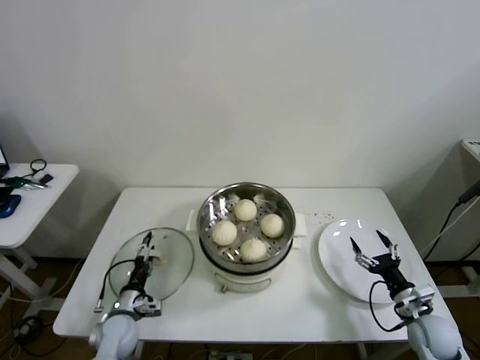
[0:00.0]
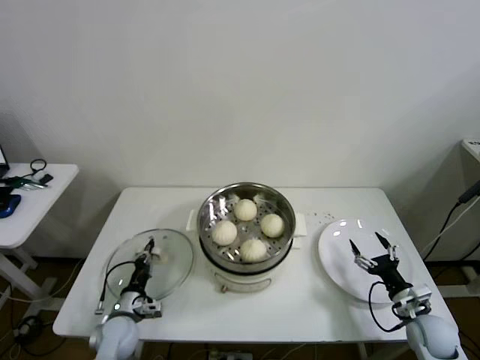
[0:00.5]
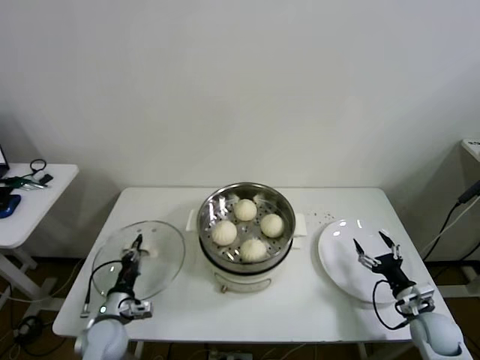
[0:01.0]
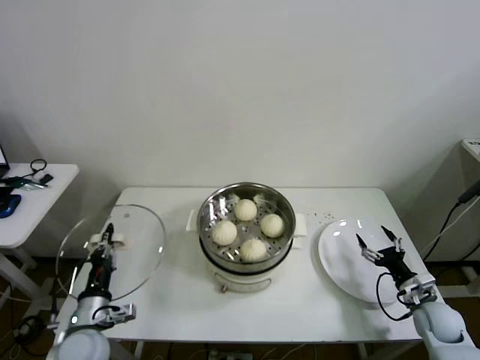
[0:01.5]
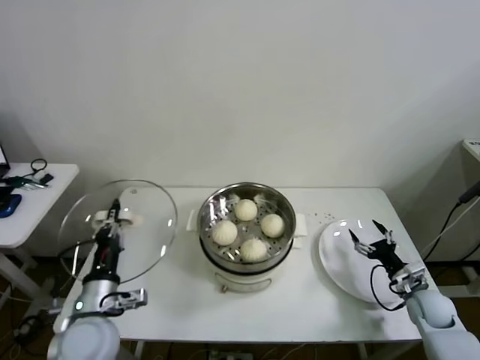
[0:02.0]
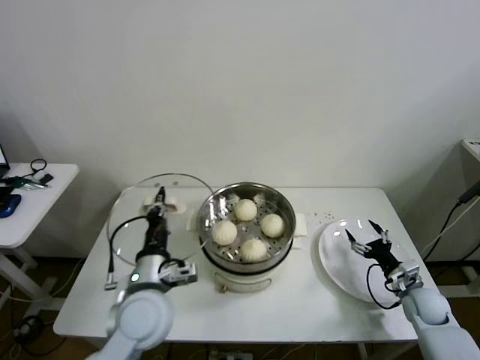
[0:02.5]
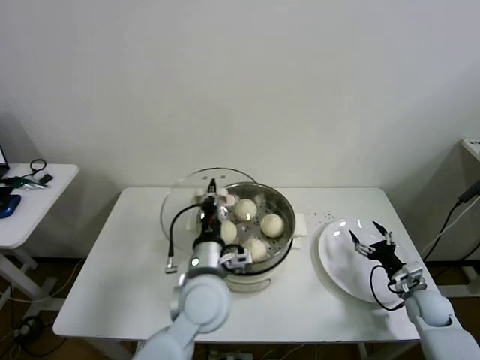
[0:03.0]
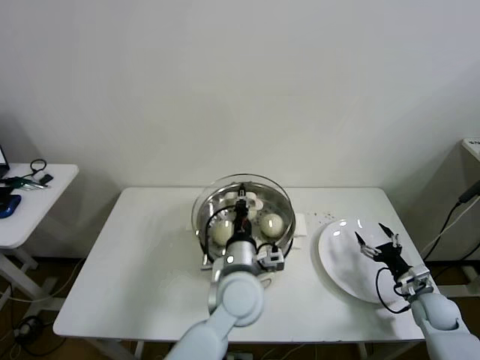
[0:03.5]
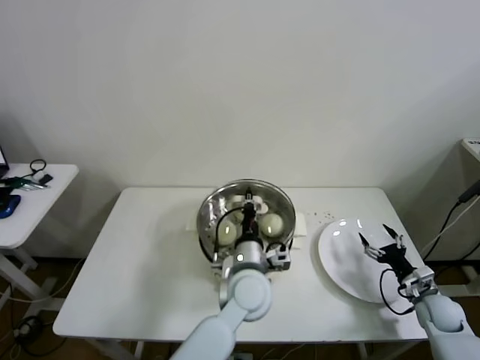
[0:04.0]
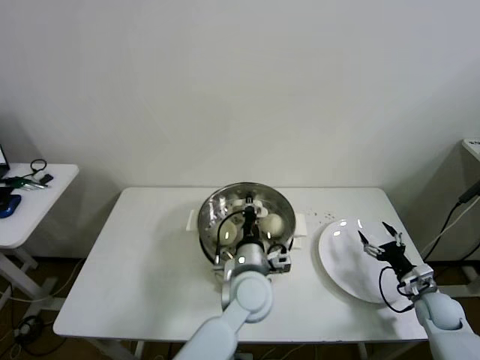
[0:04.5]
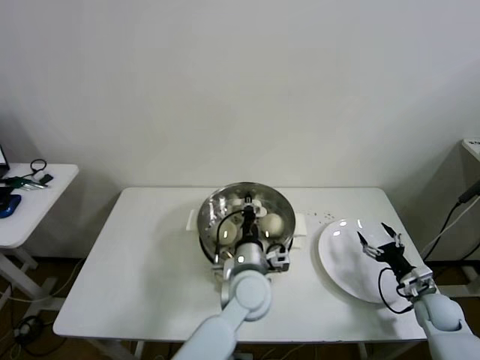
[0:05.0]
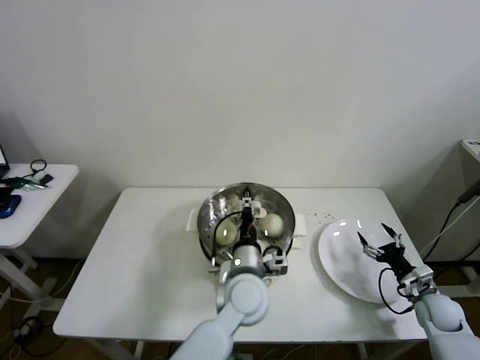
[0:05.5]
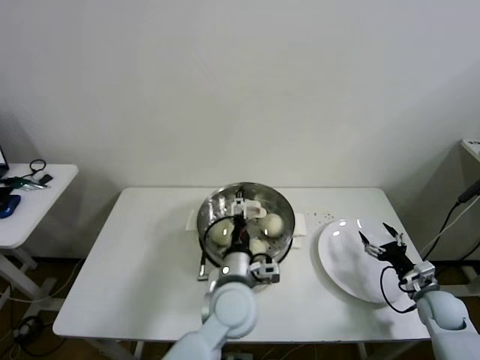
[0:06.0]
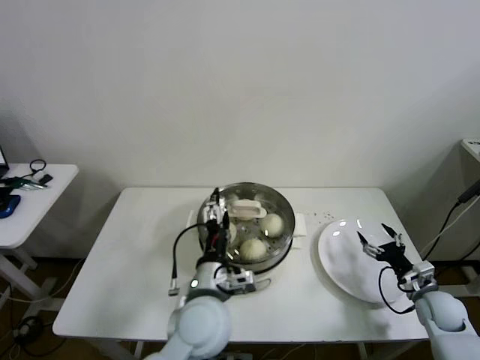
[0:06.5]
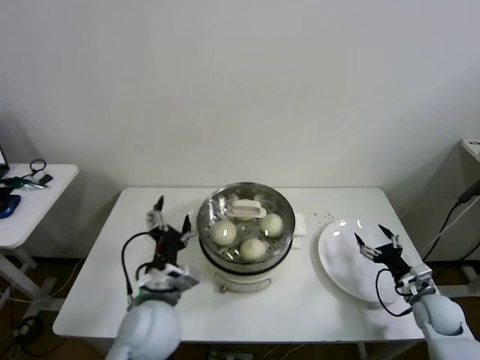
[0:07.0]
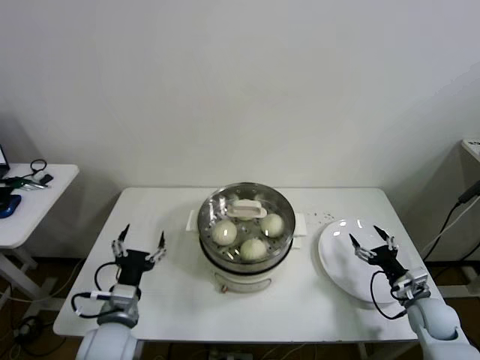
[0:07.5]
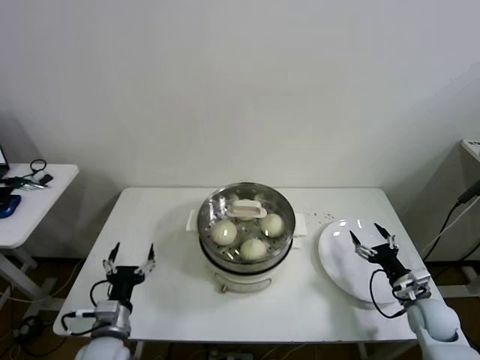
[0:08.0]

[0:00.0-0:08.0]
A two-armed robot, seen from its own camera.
Step, 0:01.0 to 0:05.0: Place the pot lid on the steamer with left gripper.
0:00.0 to 0:02.0: The right gripper travels forward by about 5 cm. The left gripper shifts approximately 20 cm upward, and closes up.
0:02.0 to 0:04.0: The left gripper shifts approximately 30 cm to the right.
0:04.0 to 0:06.0: The left gripper opens.
0:06.0 to 0:08.0: The left gripper moves to the left, approximately 25 cm.

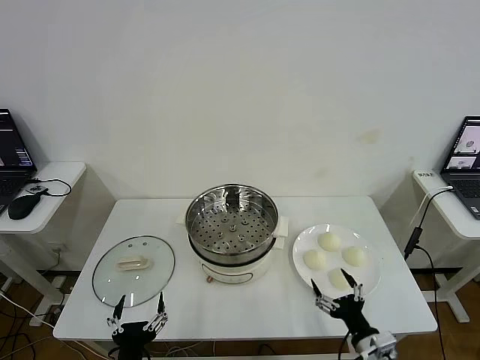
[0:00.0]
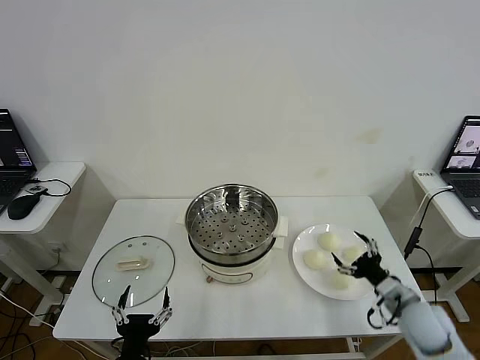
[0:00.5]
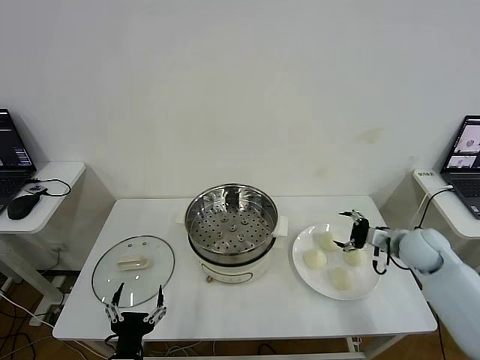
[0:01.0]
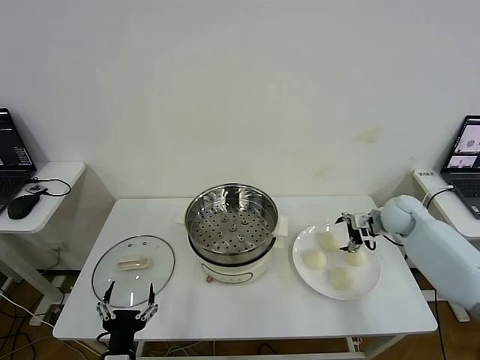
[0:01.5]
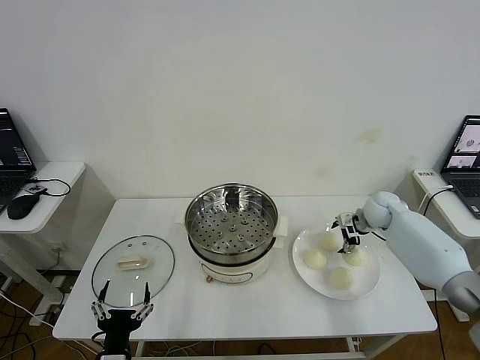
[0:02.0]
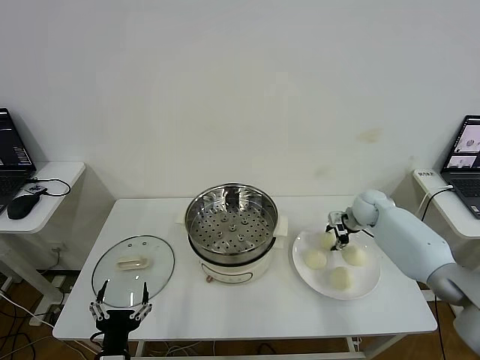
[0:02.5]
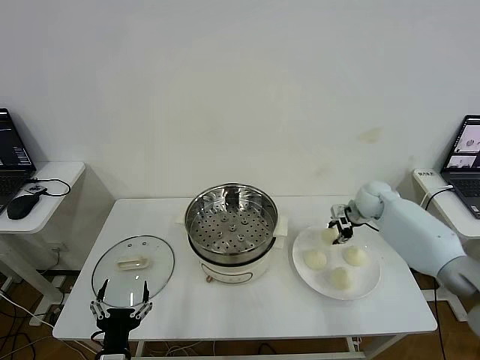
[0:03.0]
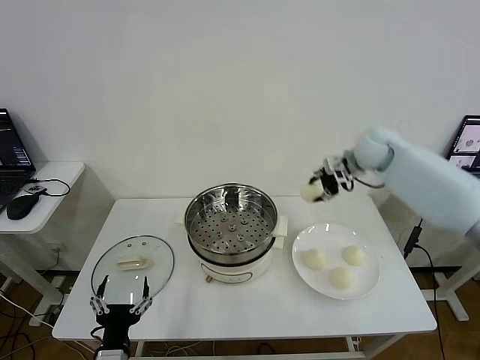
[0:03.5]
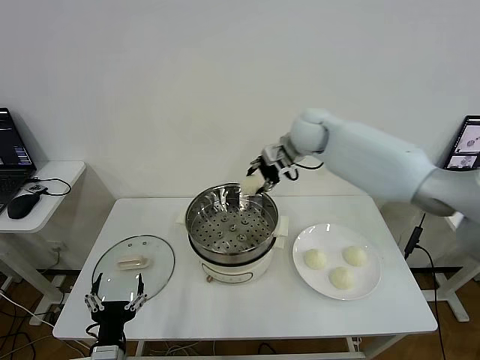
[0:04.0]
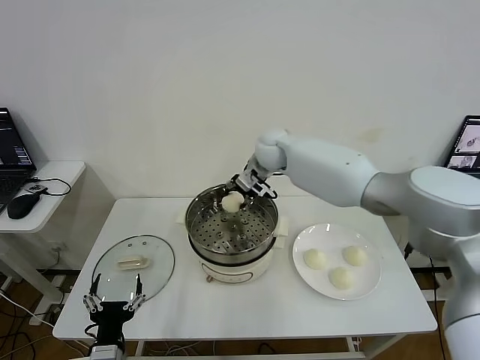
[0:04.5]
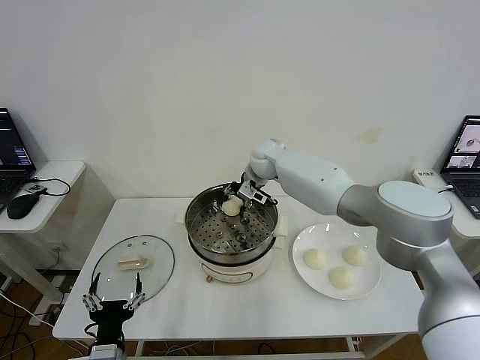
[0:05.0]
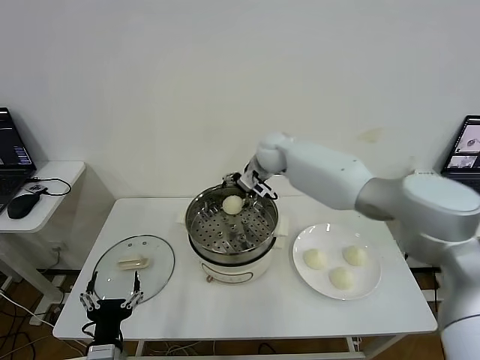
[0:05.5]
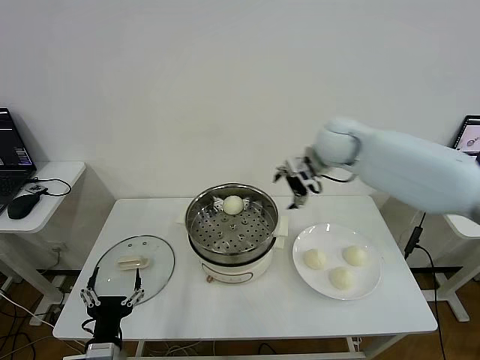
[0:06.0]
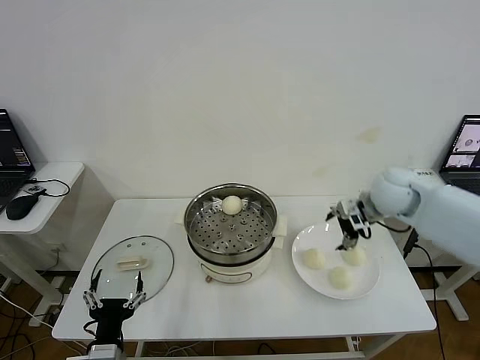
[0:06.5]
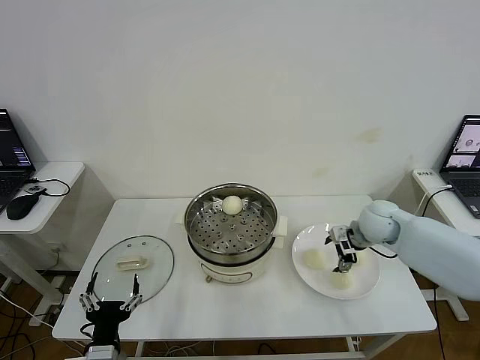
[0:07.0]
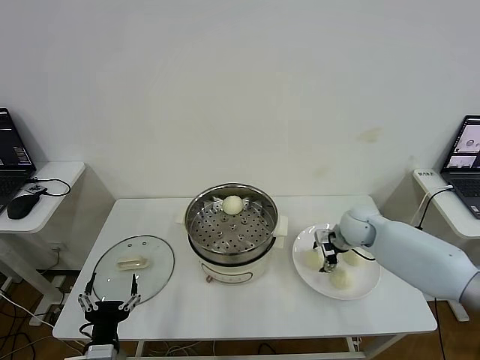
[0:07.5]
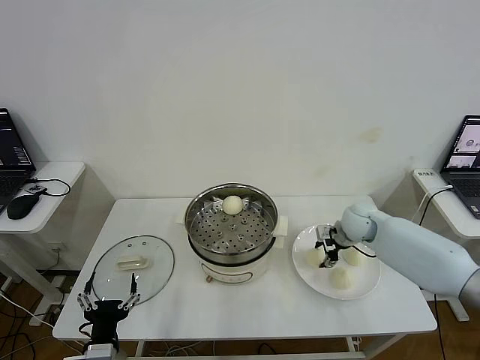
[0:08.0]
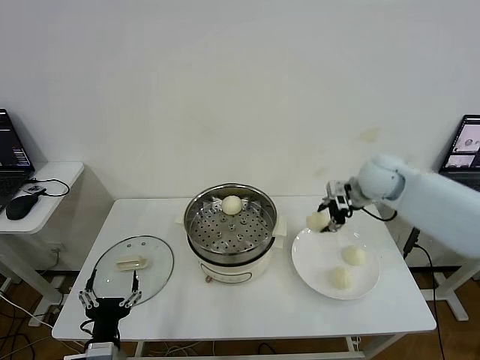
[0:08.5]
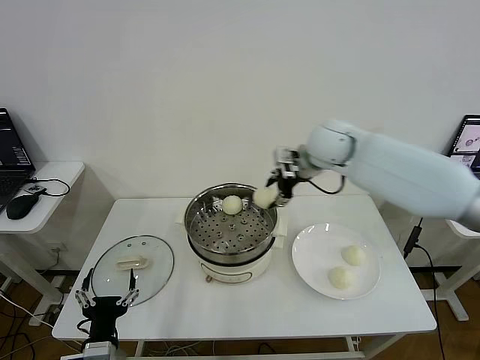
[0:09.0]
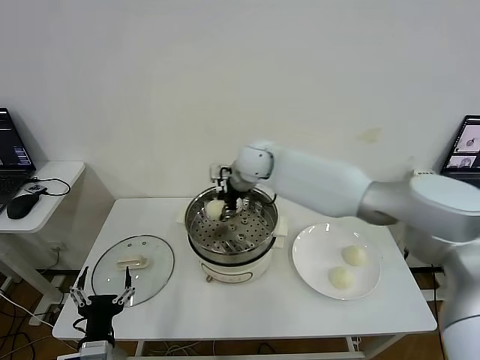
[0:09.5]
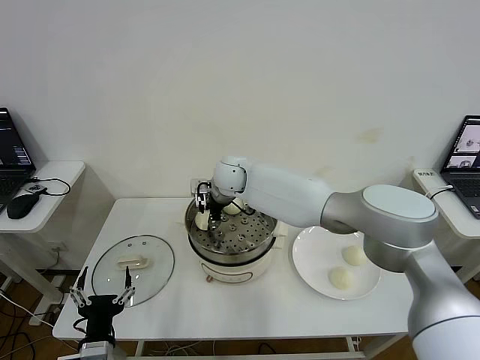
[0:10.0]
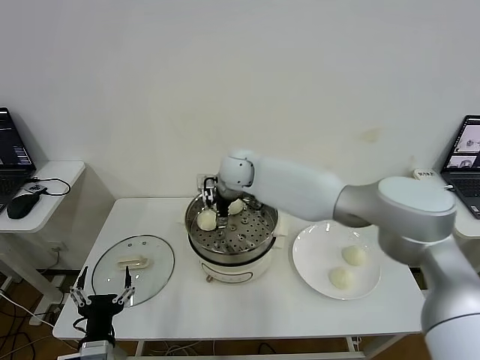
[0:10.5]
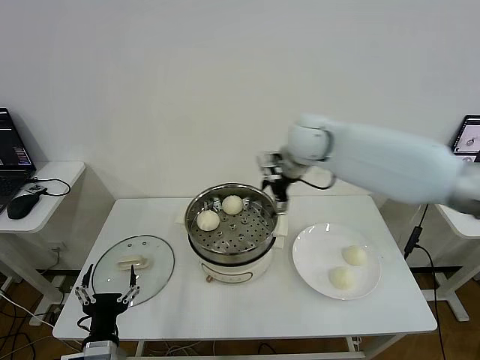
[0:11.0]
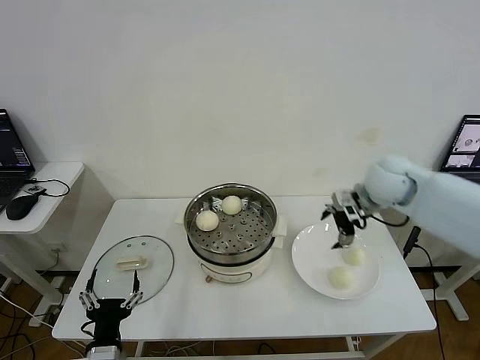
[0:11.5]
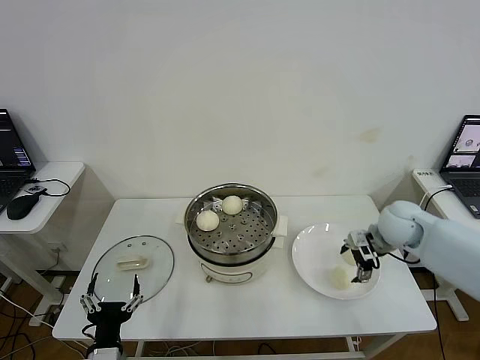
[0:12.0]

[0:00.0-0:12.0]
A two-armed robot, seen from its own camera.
Step, 0:00.0 to 0:02.5: Grasp the baozi in the plate with right gripper.
Step, 0:03.0 to 0:05.5: Place the baozi on the steamer with right gripper.
Step, 0:06.0 to 0:07.5: Grasp the baozi in the plate with right gripper.
Step, 0:08.0 to 0:10.5: Place the baozi on the steamer with right gripper.
0:02.0 to 0:04.0: The right gripper heads to the left and upward, covering approximately 30 cm, and closes its fingers.
0:04.0 to 0:06.0: The right gripper shifts roughly 15 cm to the right and backward, and opens up.
0:06.0 to 0:08.0: The right gripper moves downward, about 20 cm, and closes up.
0:08.0 to 0:10.0: The right gripper moves to the left, about 35 cm.
0:10.0 to 0:12.0: The right gripper heads to the right, covering roughly 40 cm, and opens its fingers.

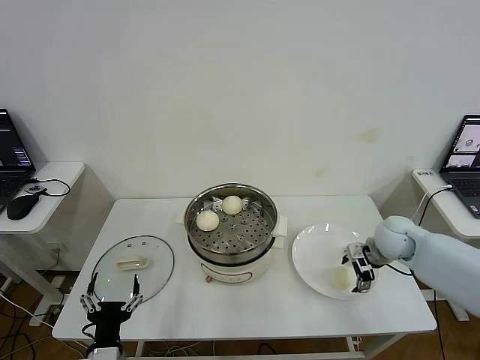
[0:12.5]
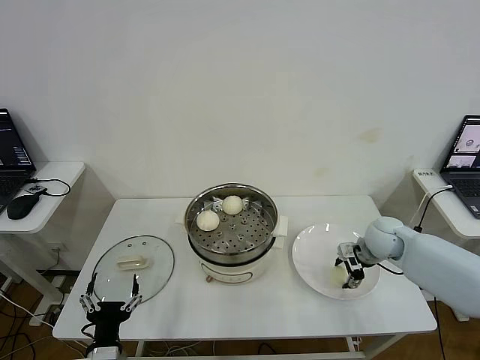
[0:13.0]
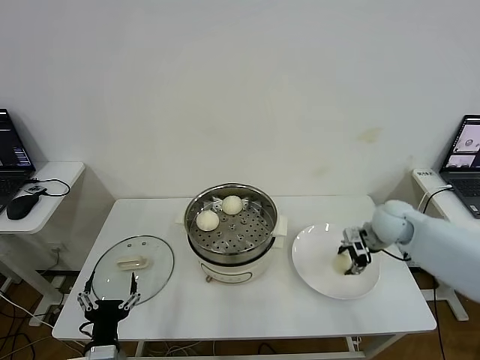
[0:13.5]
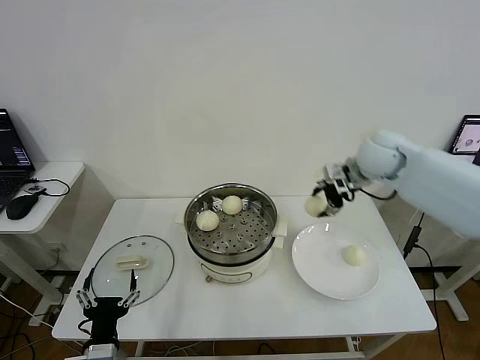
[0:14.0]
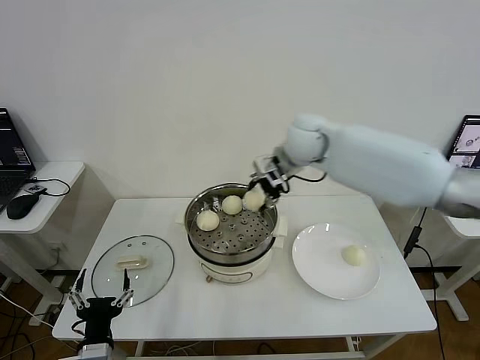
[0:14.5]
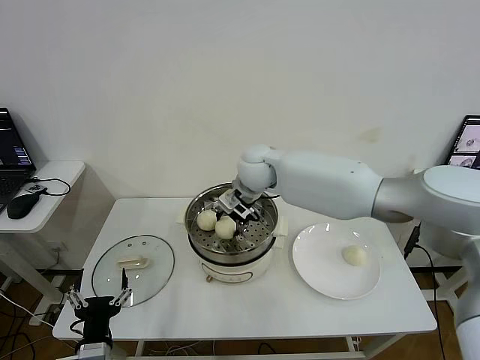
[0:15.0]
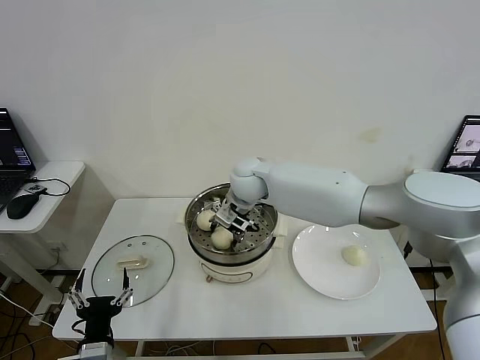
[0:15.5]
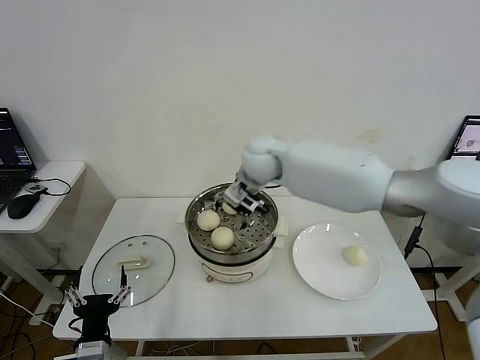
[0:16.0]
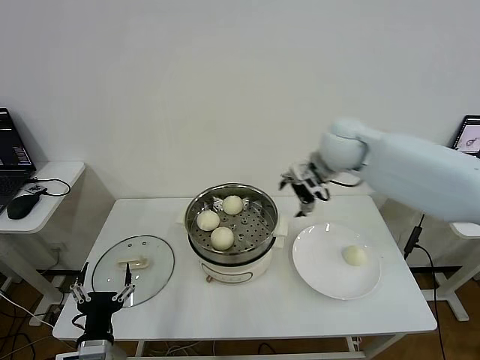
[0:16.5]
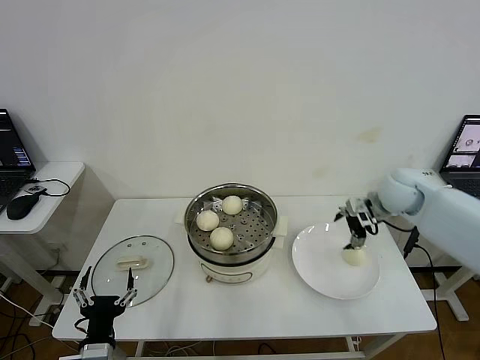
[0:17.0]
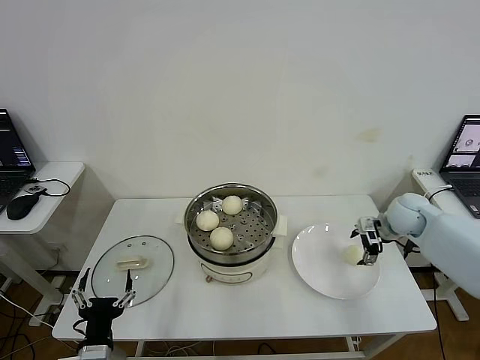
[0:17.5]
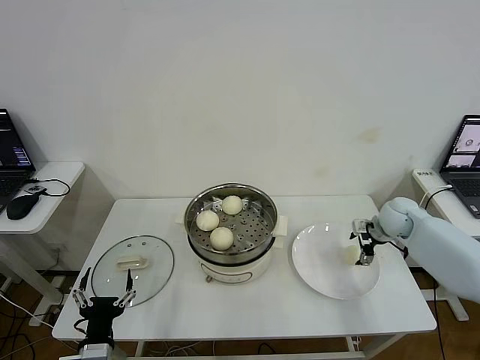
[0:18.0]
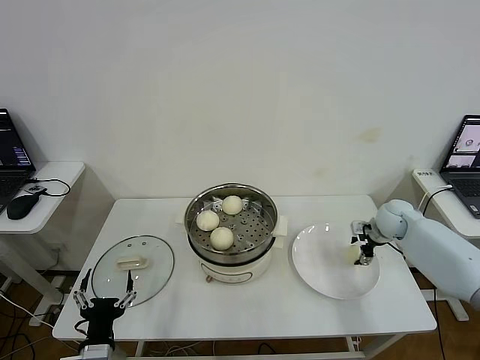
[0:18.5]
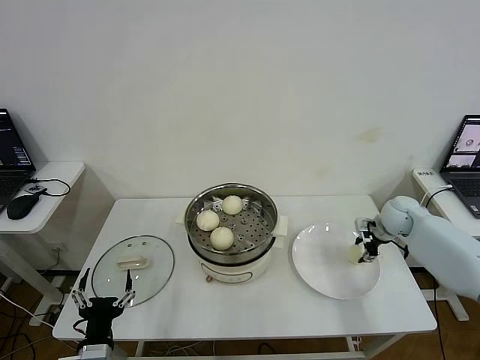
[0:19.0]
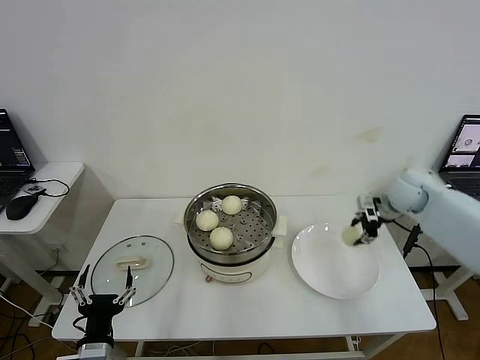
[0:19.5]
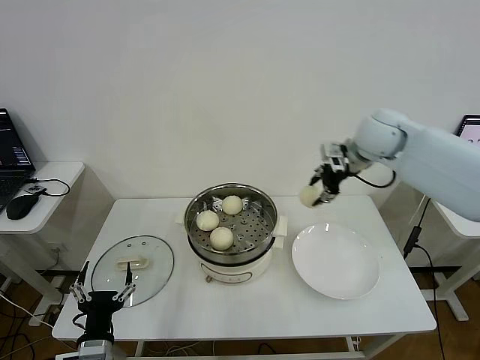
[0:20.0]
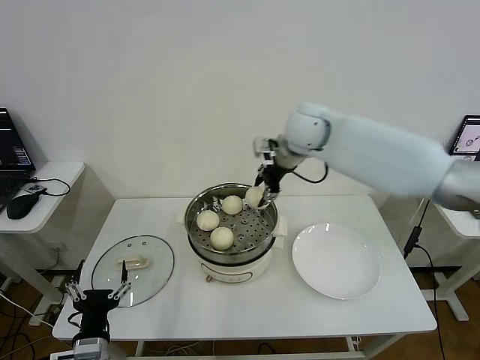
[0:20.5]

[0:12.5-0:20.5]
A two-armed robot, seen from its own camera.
Step, 0:13.5 to 0:15.5: Place the baozi on the steamer with right gripper.
Step, 0:16.0 to 0:18.5: Grasp the baozi in the plate with right gripper.
0:12.5 to 0:14.5: The right gripper travels to the left and upward by about 35 cm, and closes its fingers.
0:14.5 to 0:16.5: The right gripper goes some 10 cm to the right, and opens its fingers.
0:16.5 to 0:18.5: The right gripper goes some 30 cm downward and to the right, and closes.
0:18.5 to 0:20.5: The right gripper heads to the left and upward, covering roughly 35 cm, and closes up.
